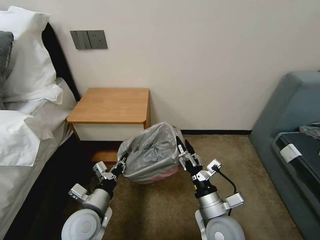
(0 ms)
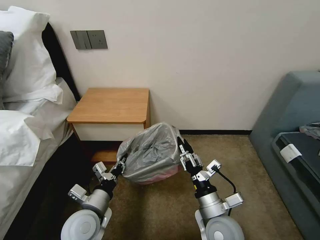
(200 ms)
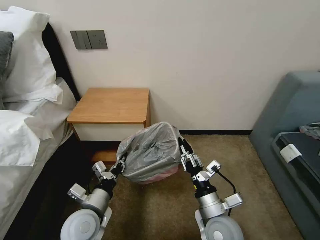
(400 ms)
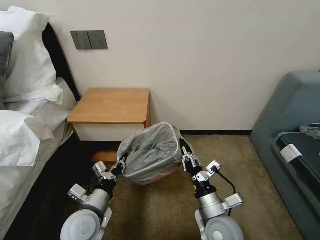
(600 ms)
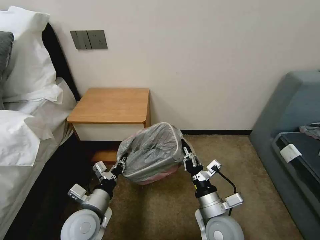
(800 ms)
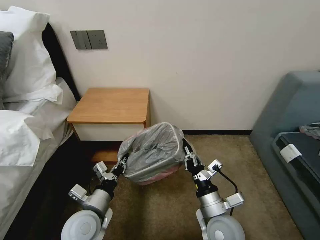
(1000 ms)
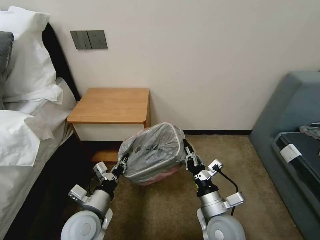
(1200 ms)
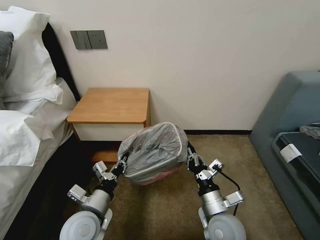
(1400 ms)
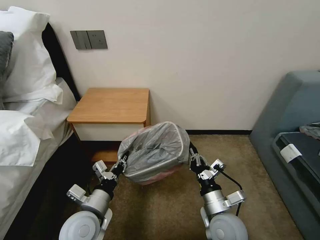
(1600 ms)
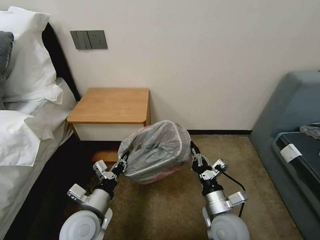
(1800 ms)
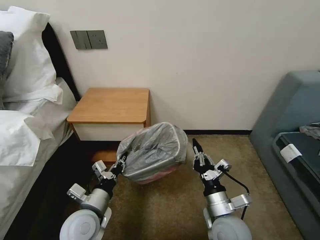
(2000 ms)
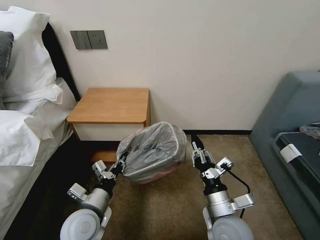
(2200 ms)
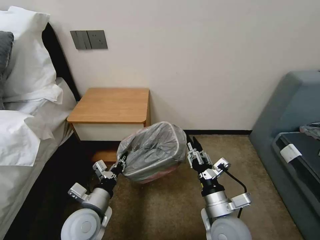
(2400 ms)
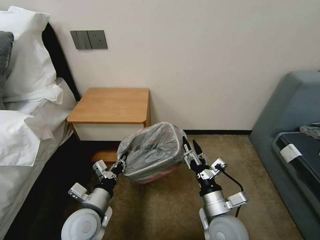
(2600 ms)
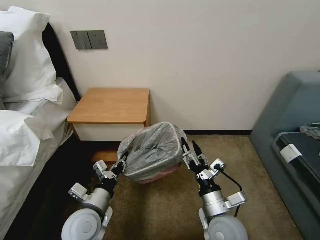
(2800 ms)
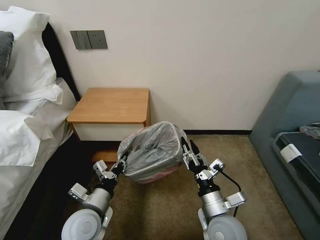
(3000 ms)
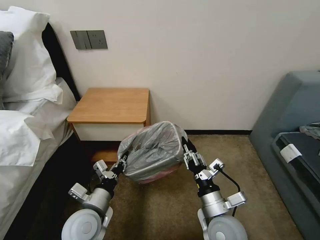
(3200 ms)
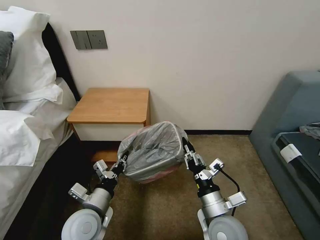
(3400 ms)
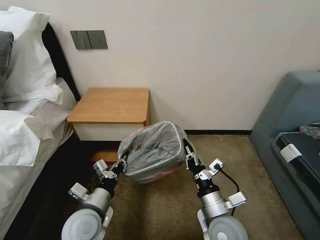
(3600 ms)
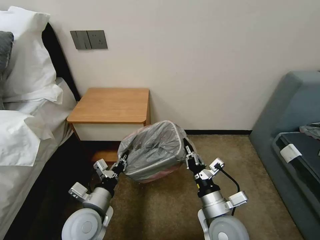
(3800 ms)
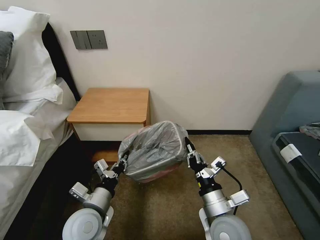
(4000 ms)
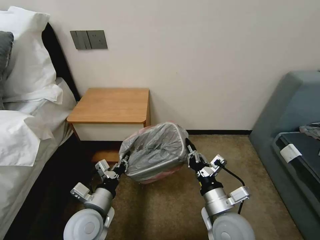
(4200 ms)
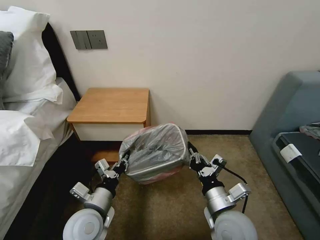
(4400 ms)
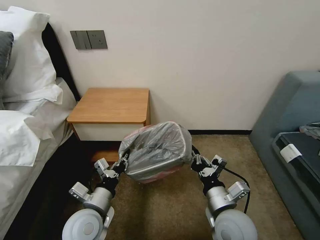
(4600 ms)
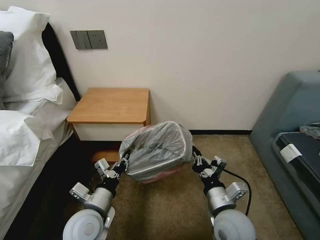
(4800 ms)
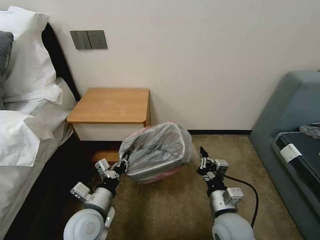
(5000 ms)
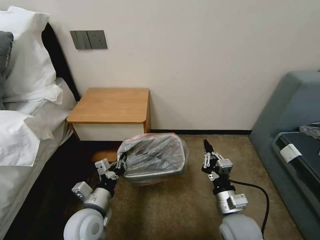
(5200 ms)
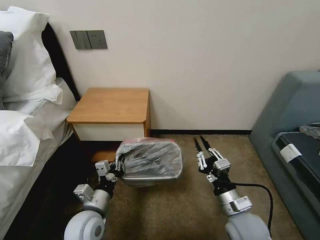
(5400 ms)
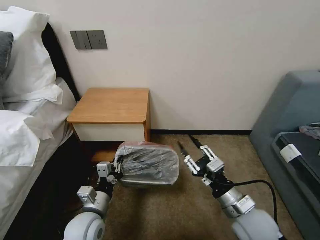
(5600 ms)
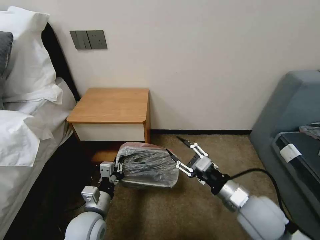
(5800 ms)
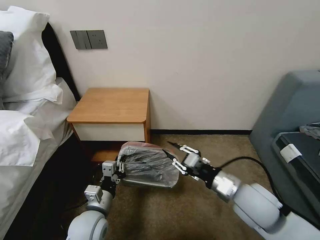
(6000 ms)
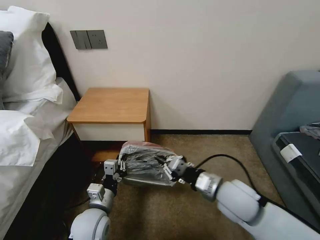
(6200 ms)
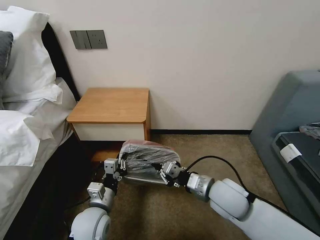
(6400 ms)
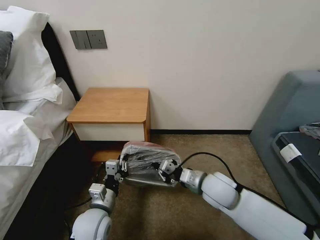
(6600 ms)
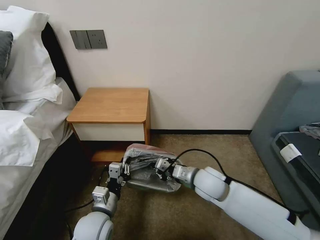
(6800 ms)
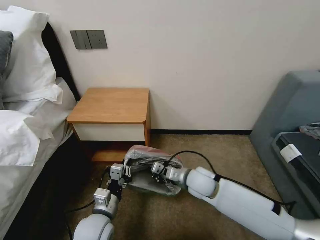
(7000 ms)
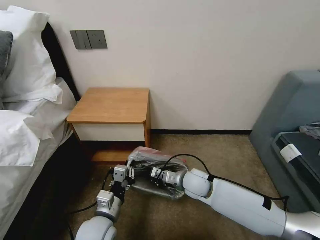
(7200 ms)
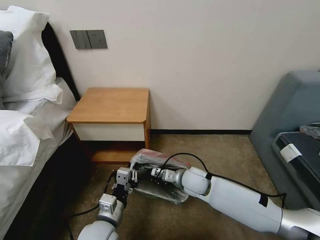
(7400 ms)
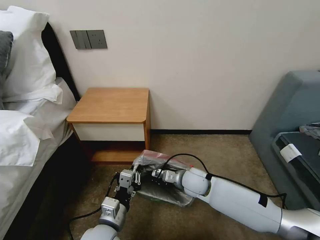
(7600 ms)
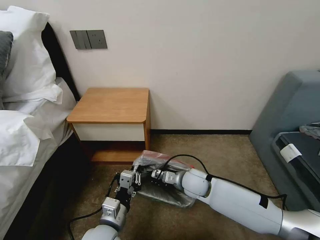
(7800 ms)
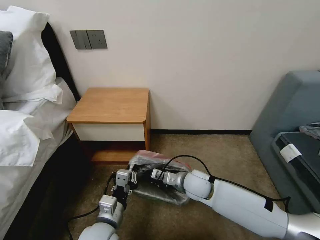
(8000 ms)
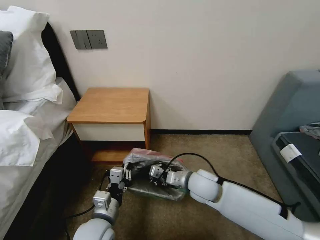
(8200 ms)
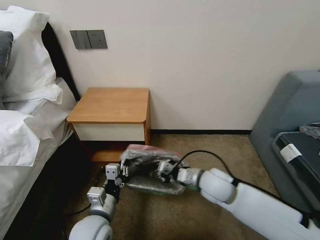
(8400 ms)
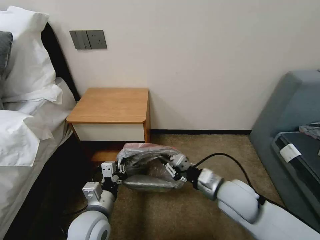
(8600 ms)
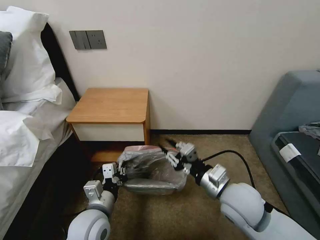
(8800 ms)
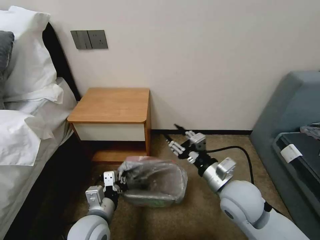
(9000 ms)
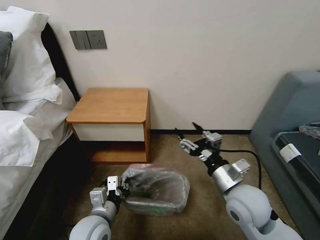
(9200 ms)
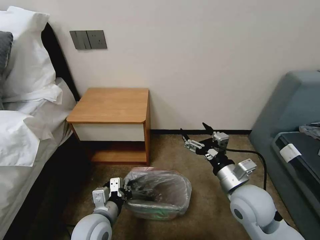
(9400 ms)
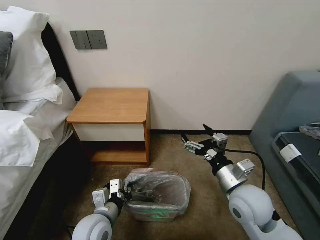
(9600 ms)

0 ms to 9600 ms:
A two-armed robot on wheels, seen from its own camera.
Task of the whole recording: Pick up the garbage bag from the table and place it over the trash can.
0 ms to 1600 ms: The right gripper closes.
1600 ms to 3200 ms: The right gripper opens.
3200 ms to 4800 ms: The right gripper closes its fingers.
4800 ms to 6400 ms: The right gripper heads forward, covering some 5 cm, and opens, then closes again.
6400 ms to 8000 ms: The right gripper heads downward, forward and to the left, covering approximately 10 cm; the left gripper ends up about 5 cm from where it was.
8000 ms to 9600 ms: The right gripper is displaced to the right, upward and backward by approximately 15 cm, and opens its fingers.

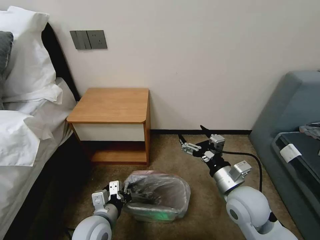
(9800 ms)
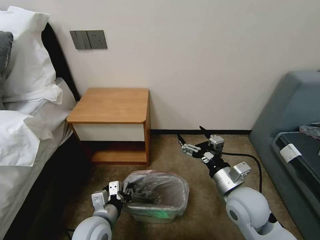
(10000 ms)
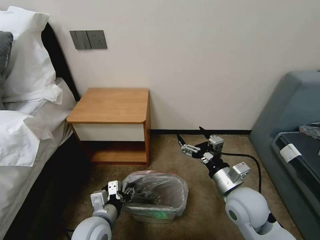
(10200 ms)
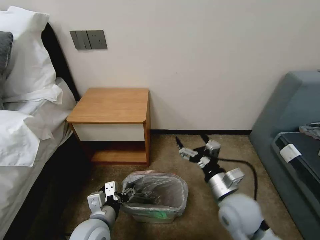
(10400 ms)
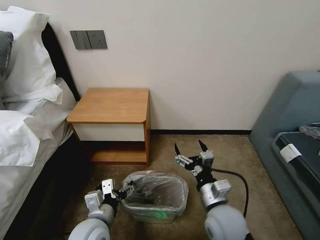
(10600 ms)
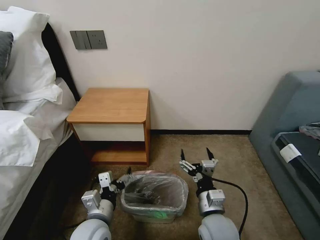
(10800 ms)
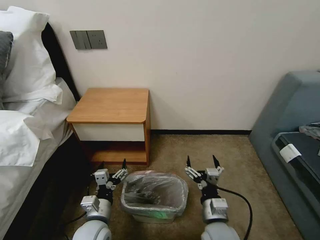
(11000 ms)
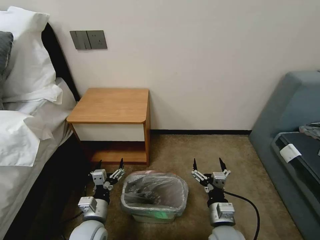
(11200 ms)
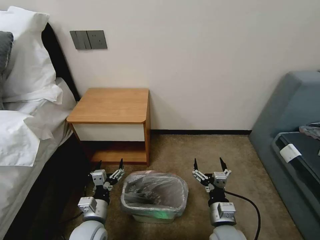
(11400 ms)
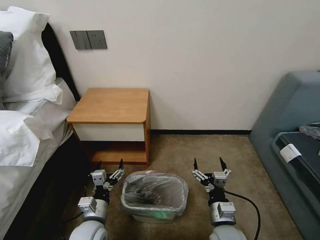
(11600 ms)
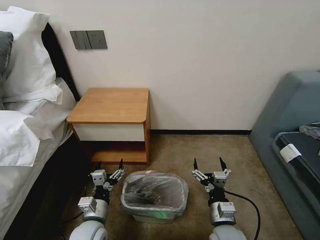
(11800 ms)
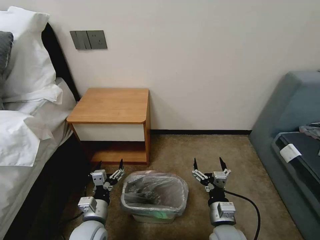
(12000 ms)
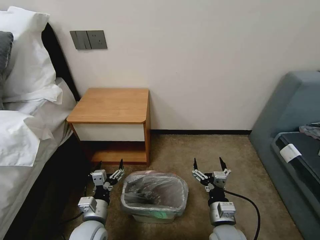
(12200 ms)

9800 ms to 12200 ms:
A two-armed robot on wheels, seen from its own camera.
Task of the whole recording: Pick up the garbage bag from the table and place it over the trash can.
9800 ms to 11000 ms: The right gripper moves downward, backward and to the left, roughly 15 cm; the left gripper opens.
11000 ms to 12200 ms: The grippers stay close to where they were, moving slightly.

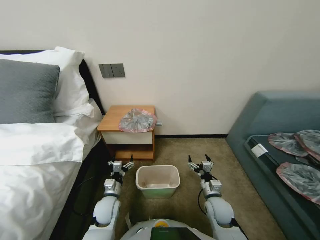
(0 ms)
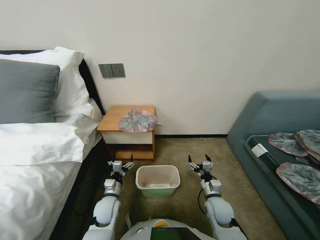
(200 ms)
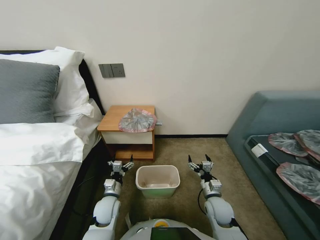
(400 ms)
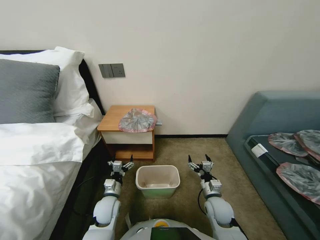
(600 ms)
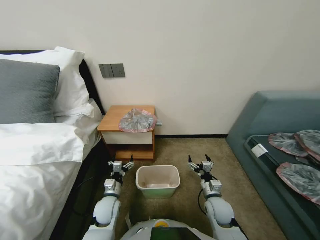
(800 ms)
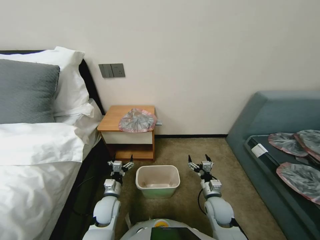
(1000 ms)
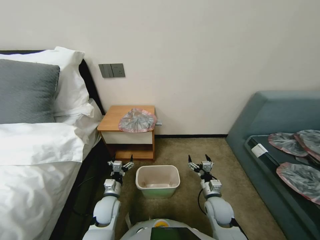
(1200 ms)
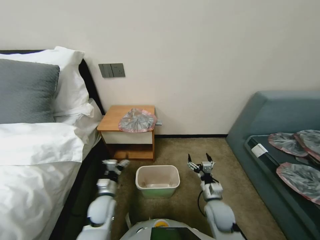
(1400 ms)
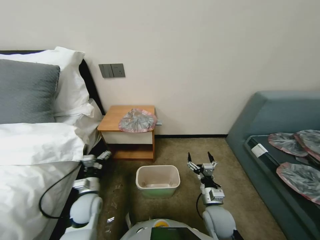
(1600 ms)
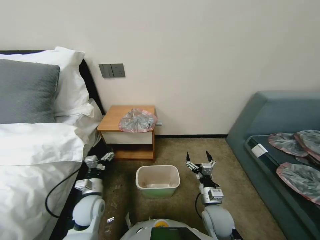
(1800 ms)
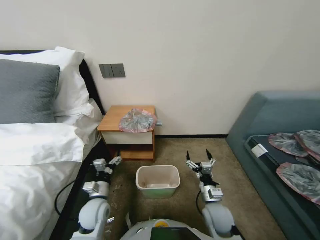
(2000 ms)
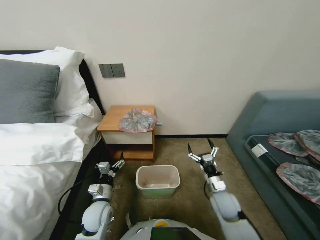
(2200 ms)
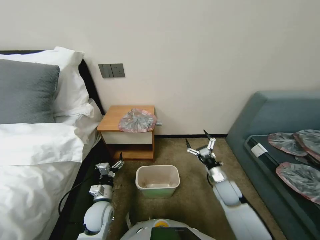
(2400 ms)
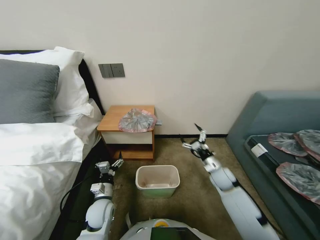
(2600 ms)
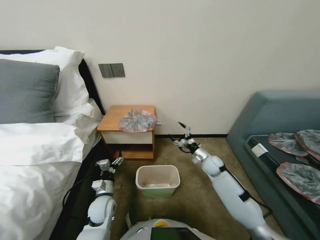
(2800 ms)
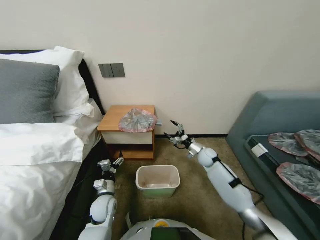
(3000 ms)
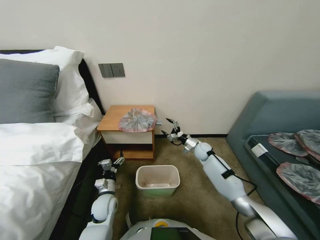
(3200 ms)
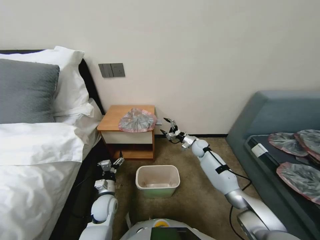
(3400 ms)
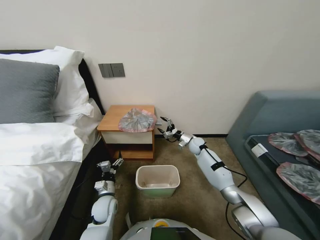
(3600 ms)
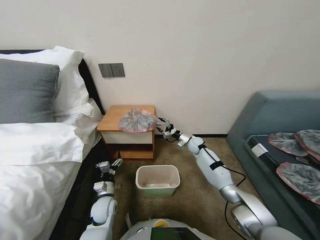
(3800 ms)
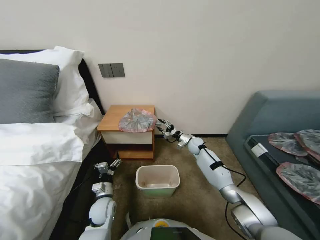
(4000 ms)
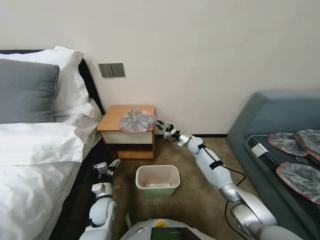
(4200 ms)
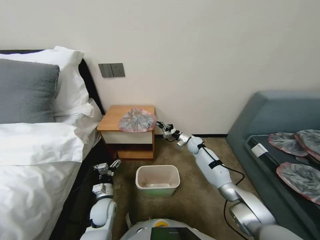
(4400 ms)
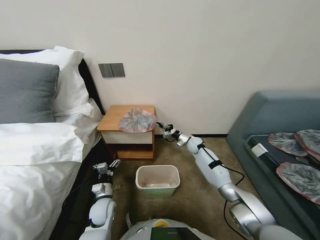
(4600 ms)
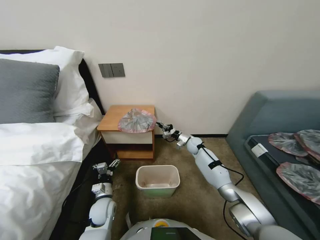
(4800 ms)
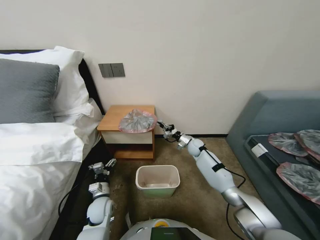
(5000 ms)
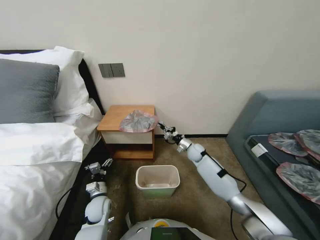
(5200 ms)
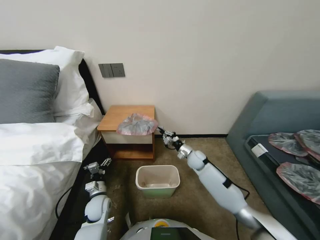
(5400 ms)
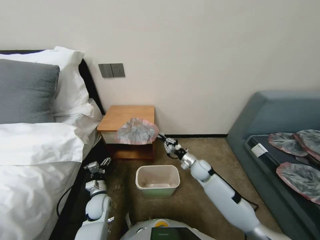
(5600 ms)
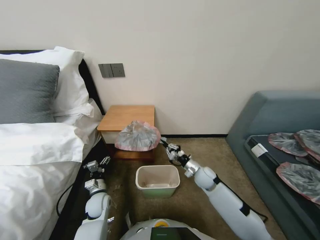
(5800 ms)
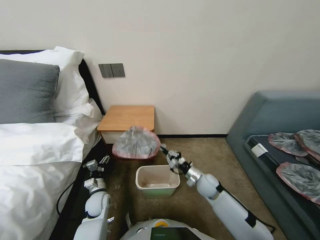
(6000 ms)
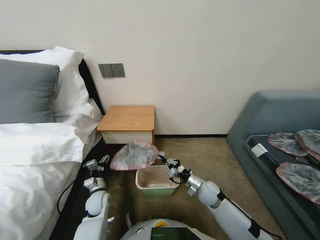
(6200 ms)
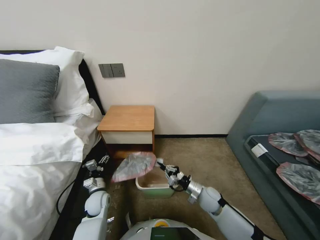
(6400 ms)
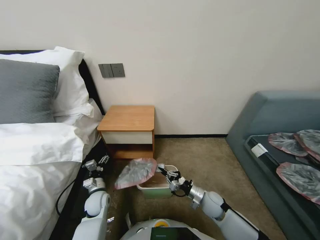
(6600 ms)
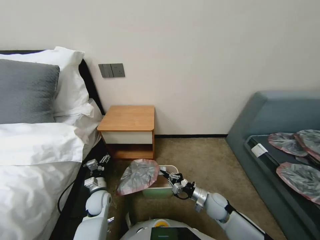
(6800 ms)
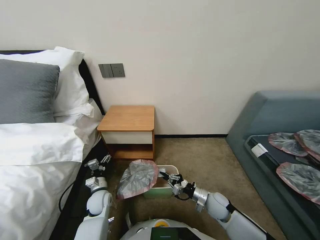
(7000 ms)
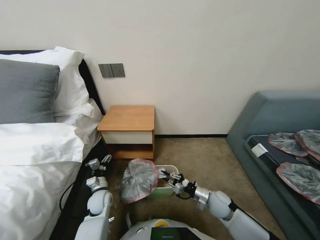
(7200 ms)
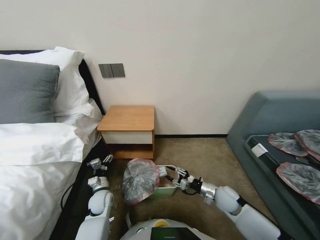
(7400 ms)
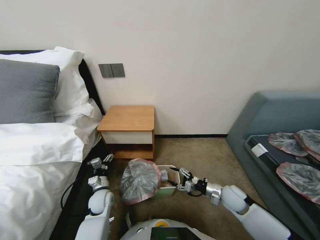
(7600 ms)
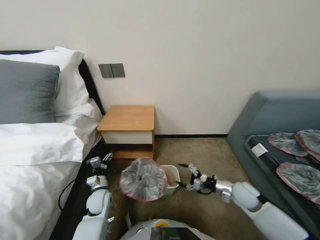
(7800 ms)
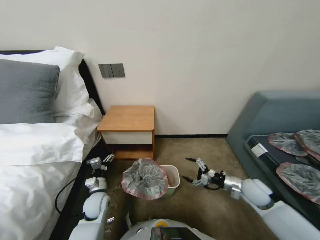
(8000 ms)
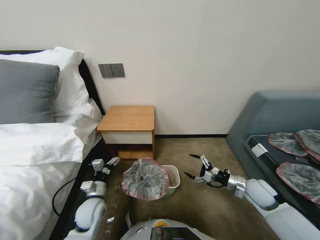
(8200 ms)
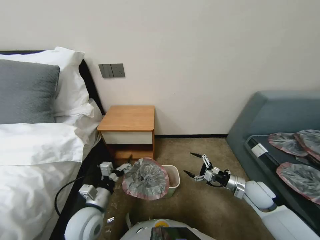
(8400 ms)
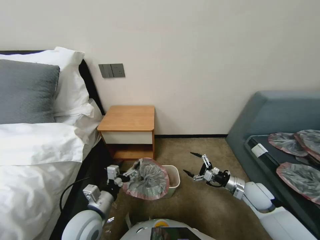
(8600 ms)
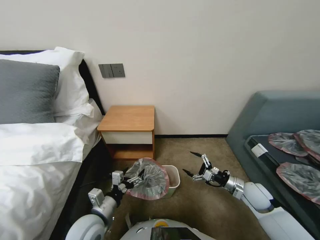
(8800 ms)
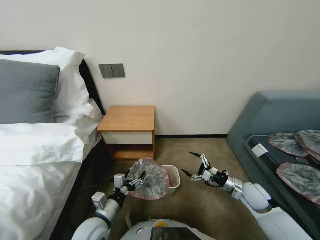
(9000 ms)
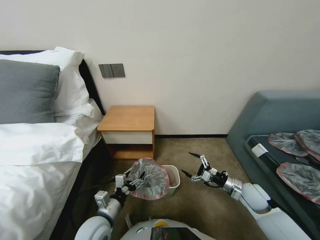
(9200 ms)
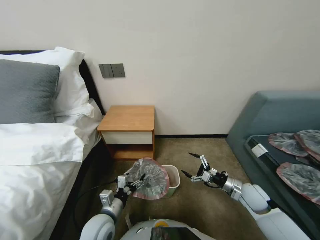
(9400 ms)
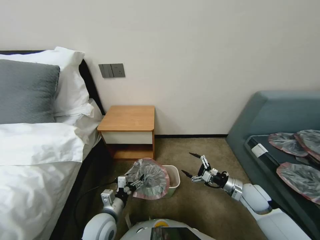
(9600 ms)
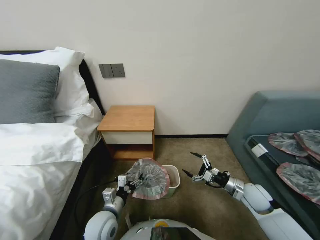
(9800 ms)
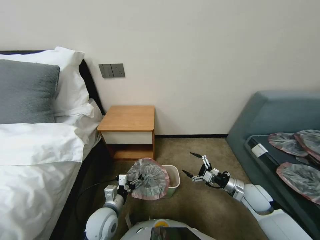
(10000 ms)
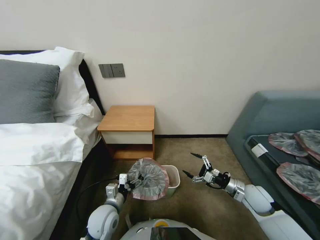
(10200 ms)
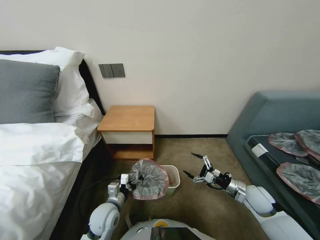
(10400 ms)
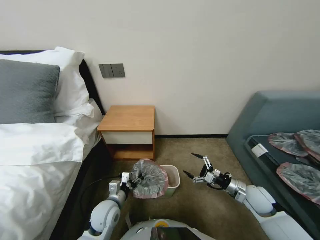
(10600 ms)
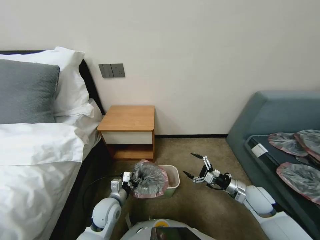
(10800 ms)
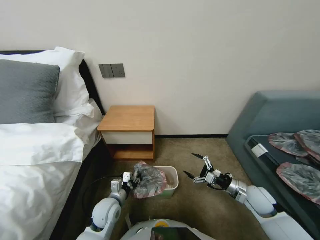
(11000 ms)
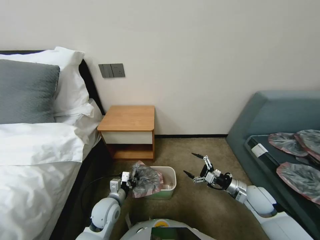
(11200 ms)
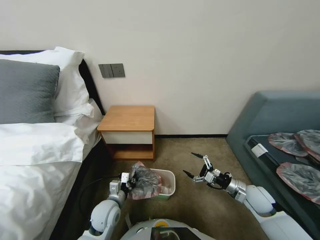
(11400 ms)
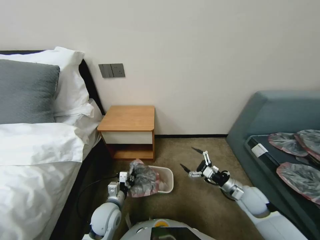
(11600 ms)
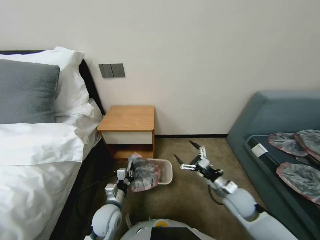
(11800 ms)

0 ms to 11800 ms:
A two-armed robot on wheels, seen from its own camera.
Task of the whole recording: Pick up the garbage bag from the table and place it over the trash can.
1400 ms to 3000 ms: The right gripper travels forward by some 20 cm.
3000 ms to 4400 ms: The right gripper goes about 10 cm forward, and closes up.
4400 ms to 6000 ms: The right gripper goes about 20 cm backward.
6000 ms to 7400 ms: The right gripper moves backward and to the right, some 10 cm, and opens its fingers.
7400 ms to 8800 ms: The left gripper moves upward and backward, some 20 cm, while the right gripper heads to the right and upward, covering some 10 cm, and opens.
8800 ms to 10400 ms: The left gripper travels downward by roughly 10 cm.
10400 ms to 11800 ms: The left gripper closes its fingers.
